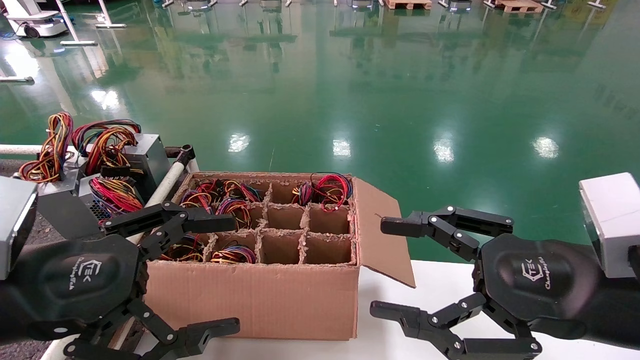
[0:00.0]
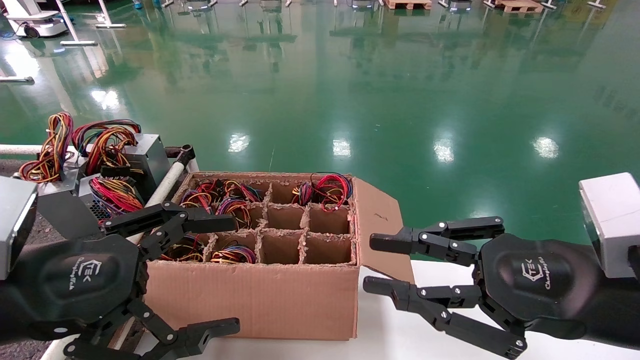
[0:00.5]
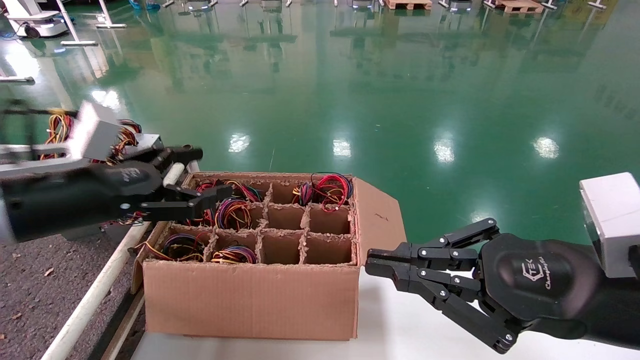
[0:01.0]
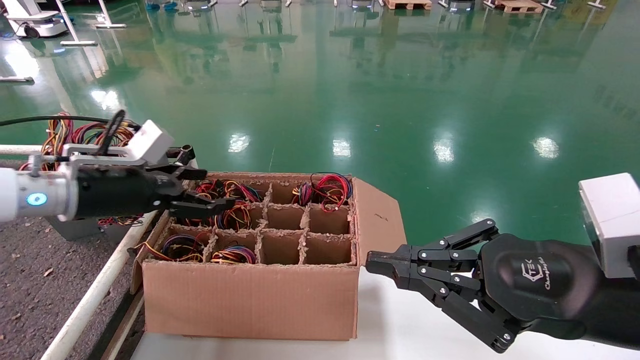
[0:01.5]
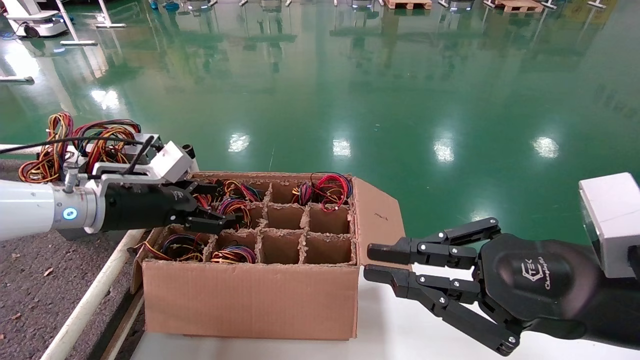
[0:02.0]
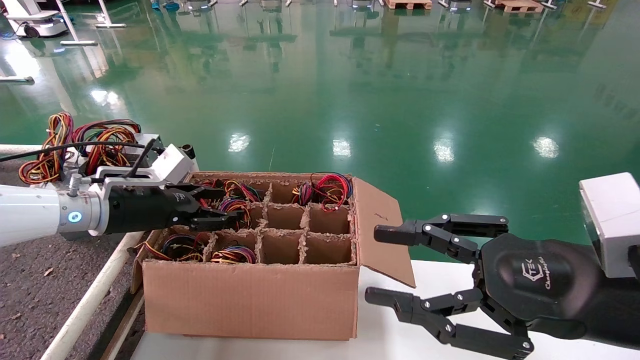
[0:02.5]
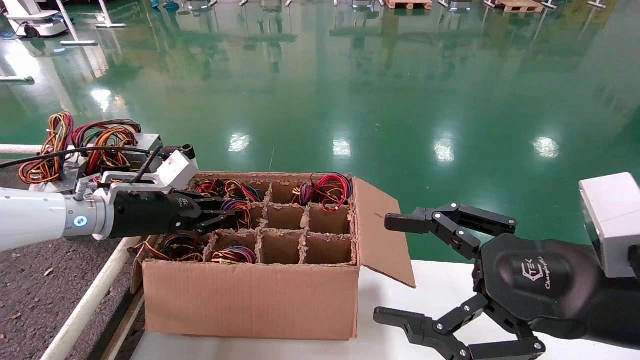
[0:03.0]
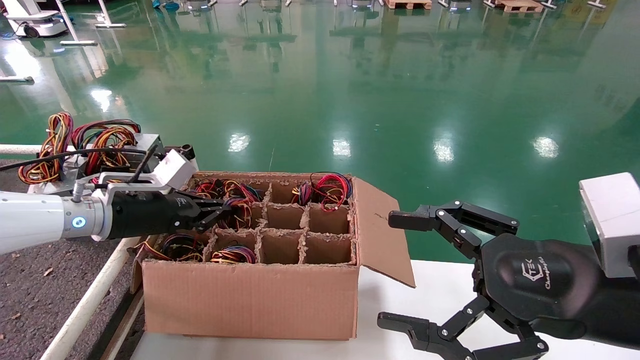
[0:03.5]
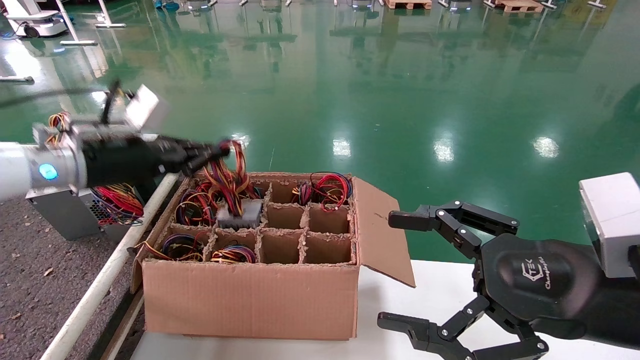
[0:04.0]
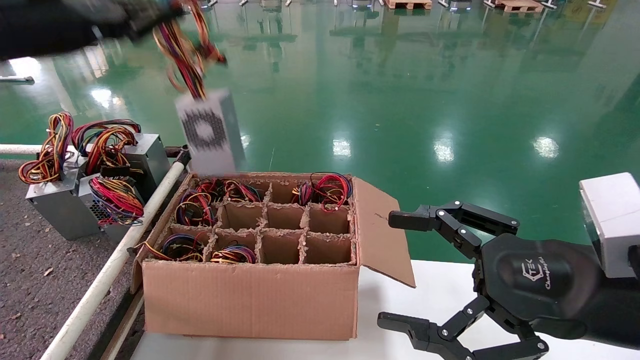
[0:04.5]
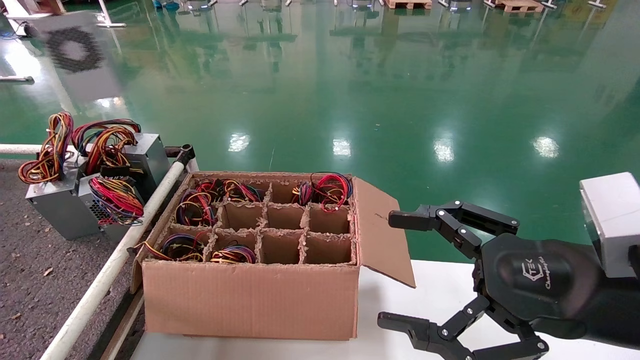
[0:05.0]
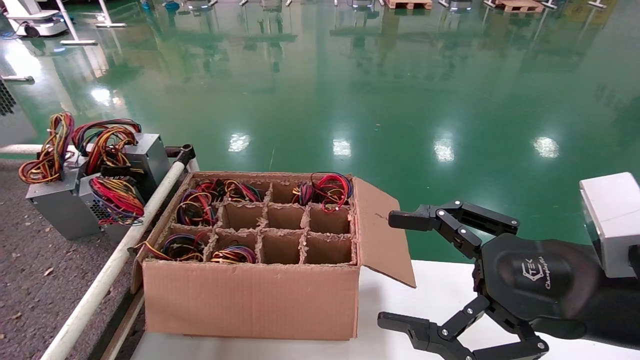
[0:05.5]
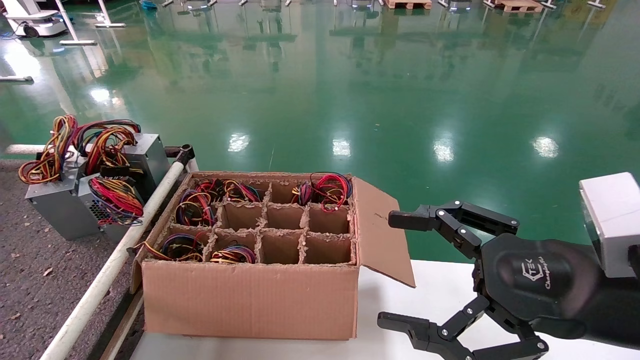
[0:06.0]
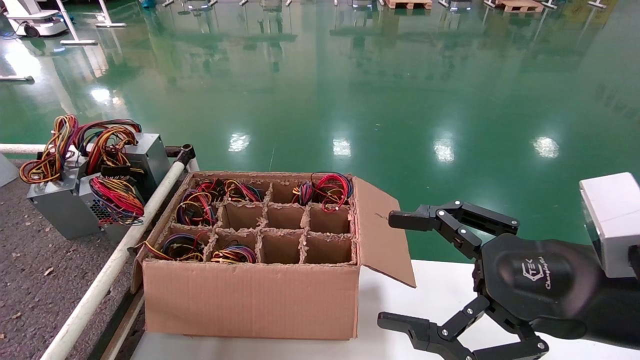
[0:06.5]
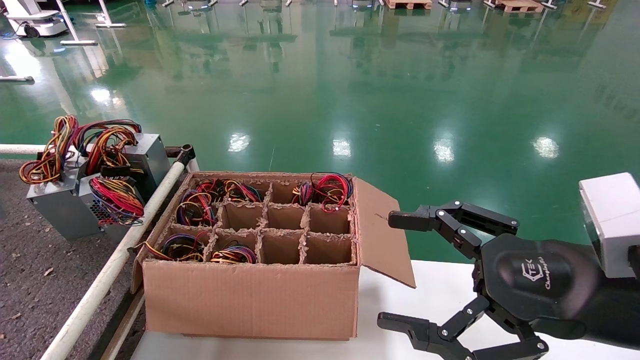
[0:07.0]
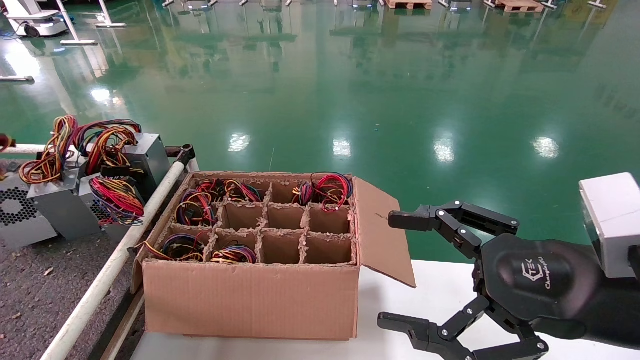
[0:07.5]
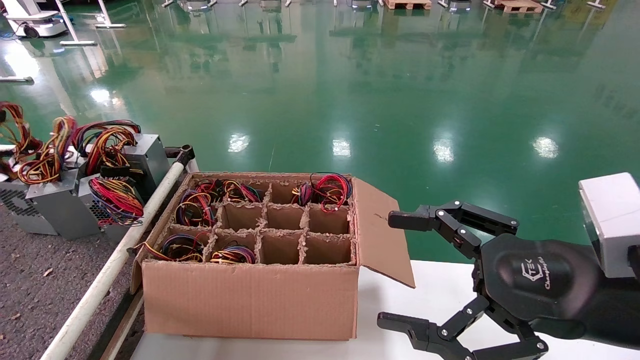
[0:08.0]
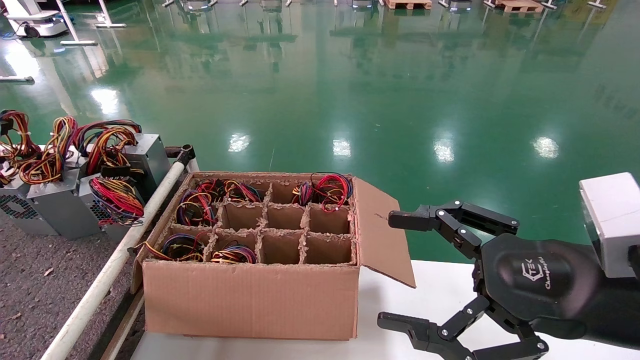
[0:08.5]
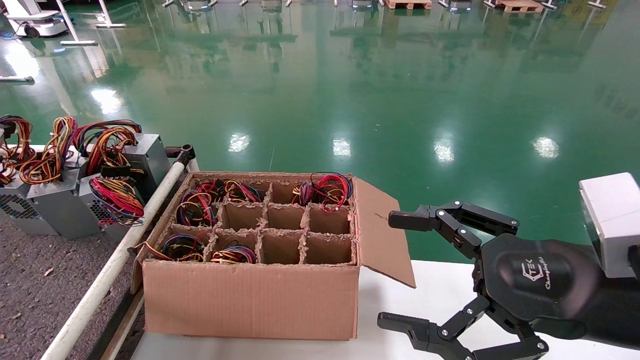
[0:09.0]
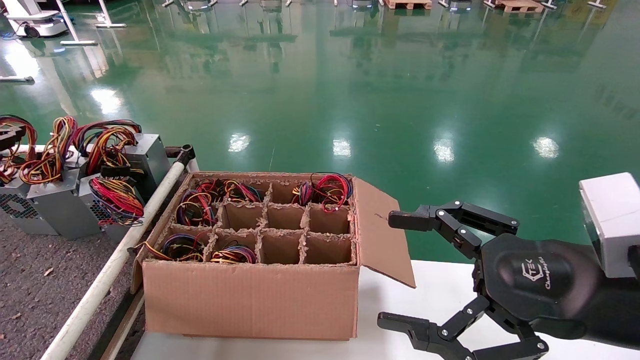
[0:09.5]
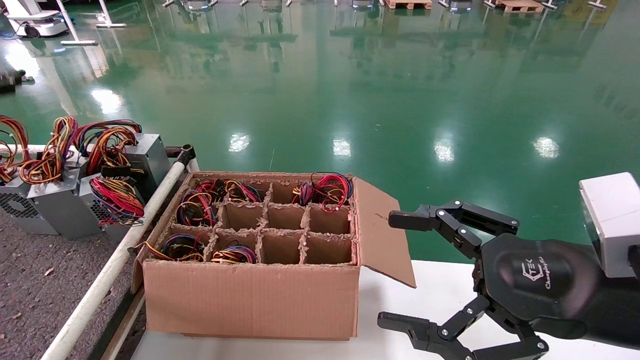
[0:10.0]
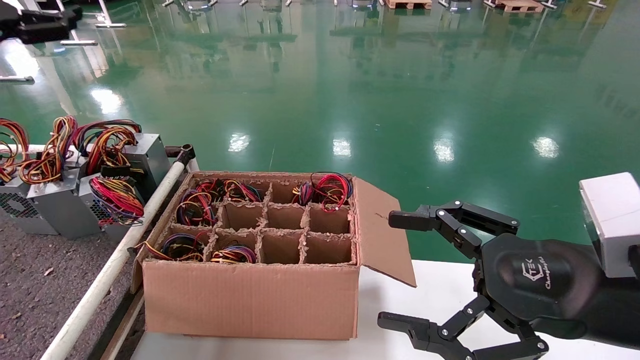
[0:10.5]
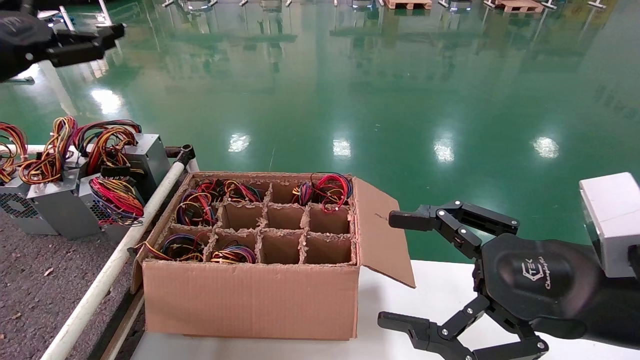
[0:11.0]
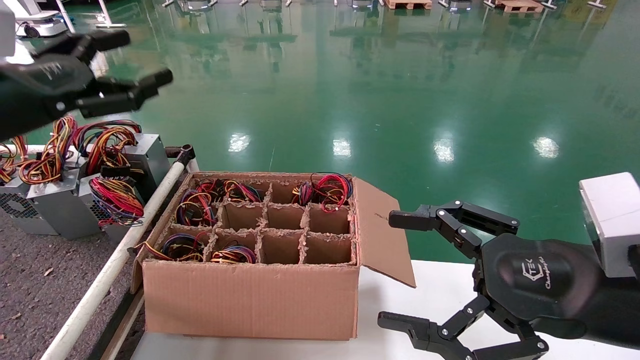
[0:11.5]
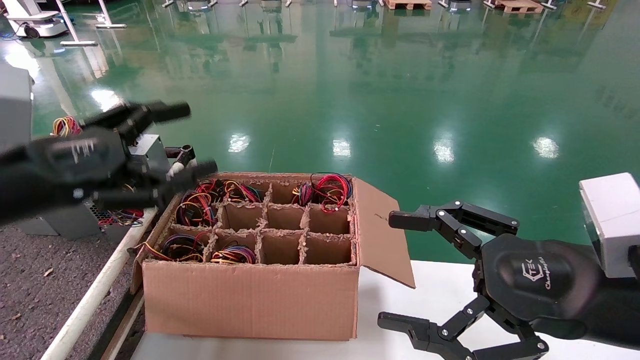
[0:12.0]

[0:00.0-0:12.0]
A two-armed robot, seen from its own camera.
Step, 0:01.0 to 0:03.5: Grab and lift the power supply from the large box.
Step, 0:04.0 to 0:09.0: Place the power supply on the operating table.
0:00.0 to 0:02.0: The left gripper goes approximately 25 cm forward; the right gripper closes.
0:02.0 to 0:04.0: The right gripper opens, while the left gripper goes roughly 10 cm upward, and closes its fingers.
0:04.0 to 0:06.0: The left gripper moves to the left and upward, roughly 30 cm.
0:06.0 to 0:08.0: The left gripper shifts about 15 cm downward and forward.
0:08.0 to 0:10.0: The left gripper travels upward by about 5 cm, and opens its fingers.
0:10.0 to 0:12.0: The left gripper travels to the right, backward and downward by roughly 25 cm.

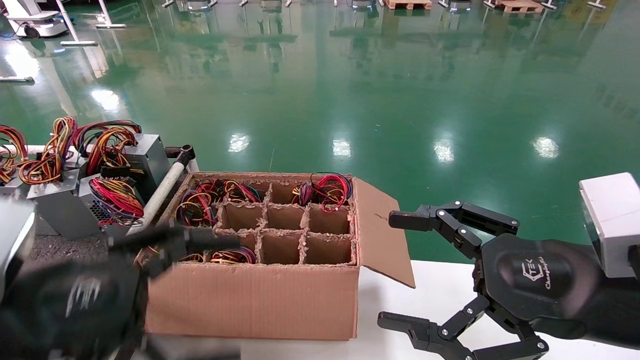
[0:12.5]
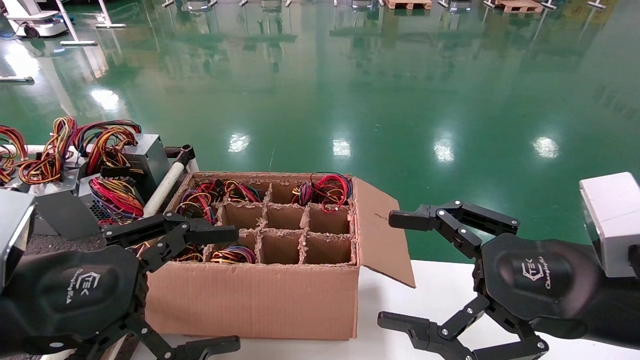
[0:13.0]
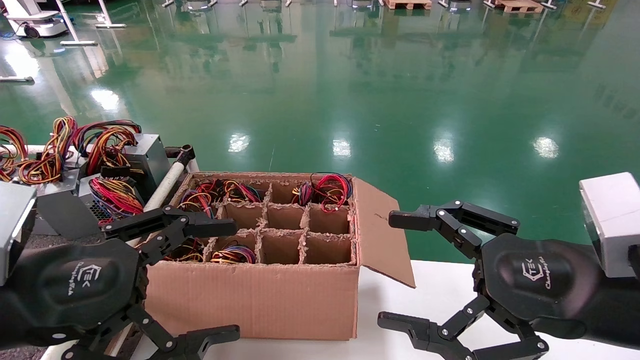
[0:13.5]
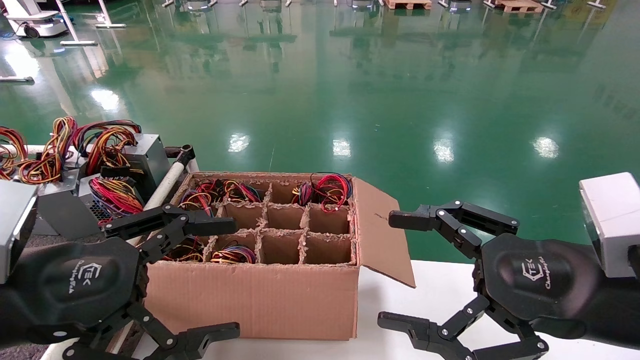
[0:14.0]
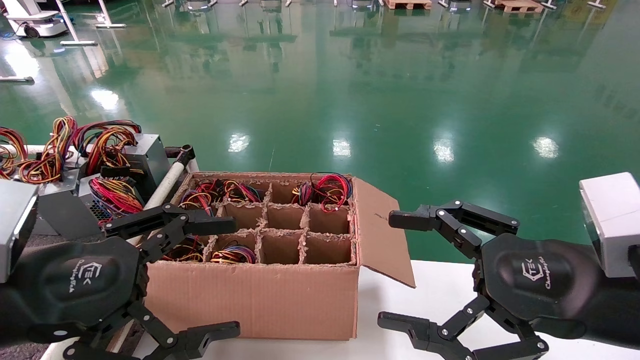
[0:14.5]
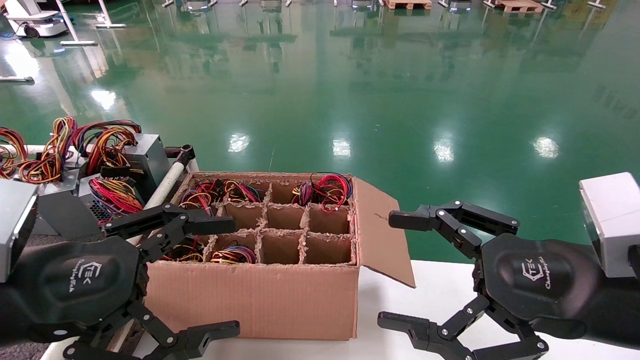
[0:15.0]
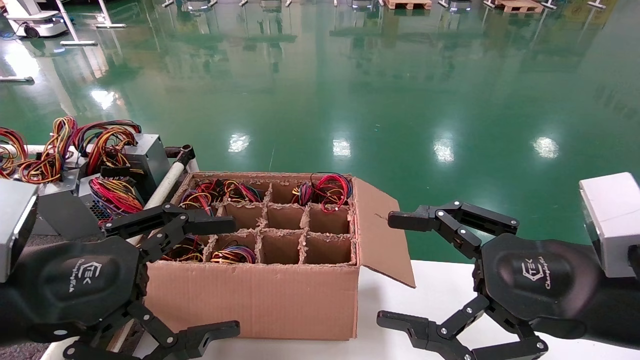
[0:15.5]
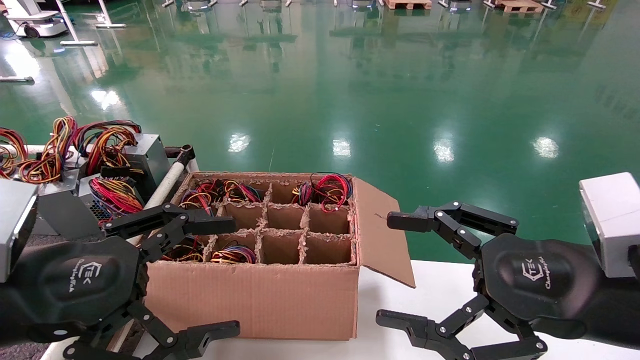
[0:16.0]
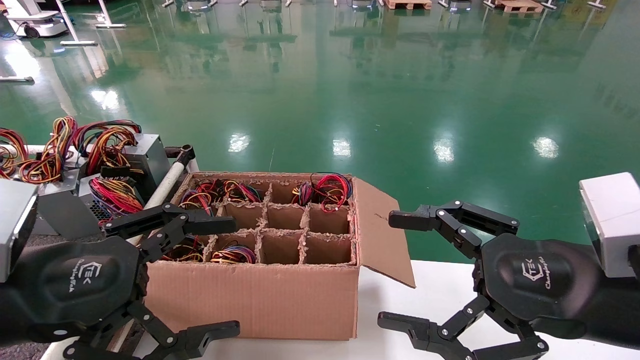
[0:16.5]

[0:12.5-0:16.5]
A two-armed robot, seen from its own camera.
0:12.5 to 0:16.5: The two grippers keep their place.
